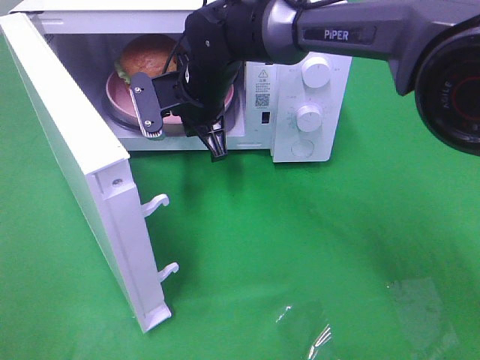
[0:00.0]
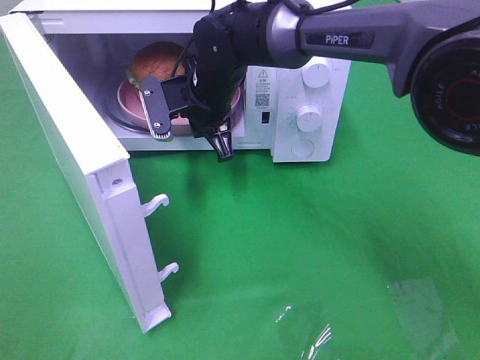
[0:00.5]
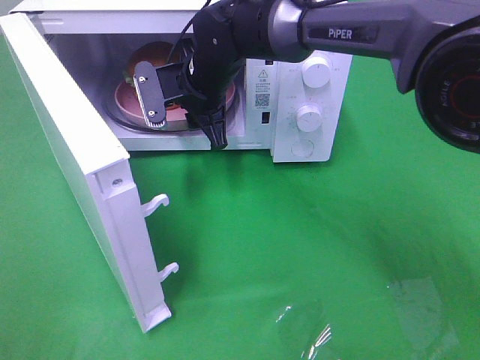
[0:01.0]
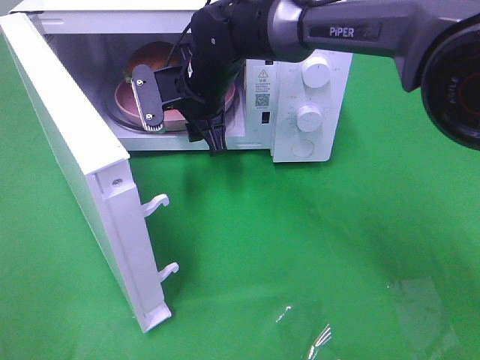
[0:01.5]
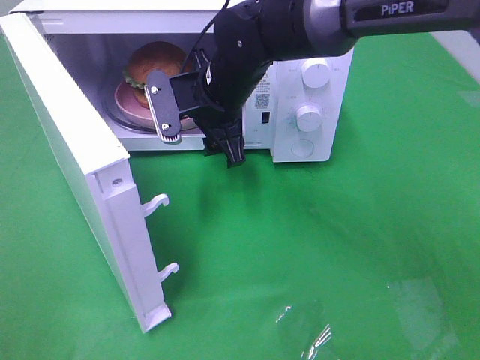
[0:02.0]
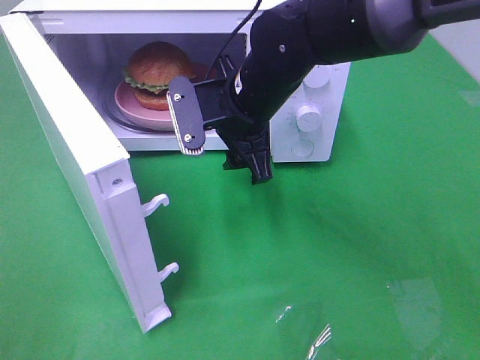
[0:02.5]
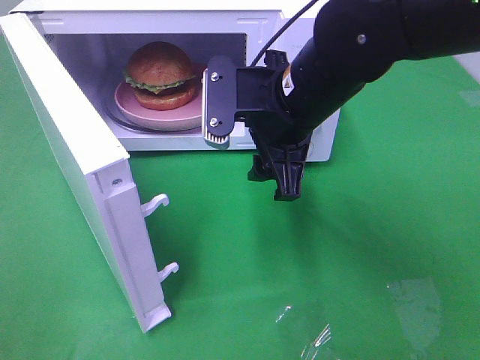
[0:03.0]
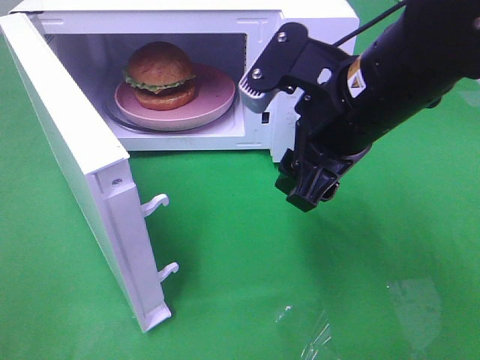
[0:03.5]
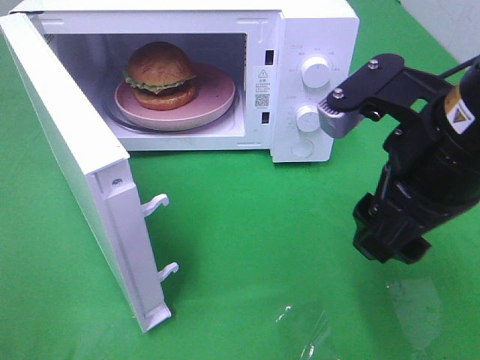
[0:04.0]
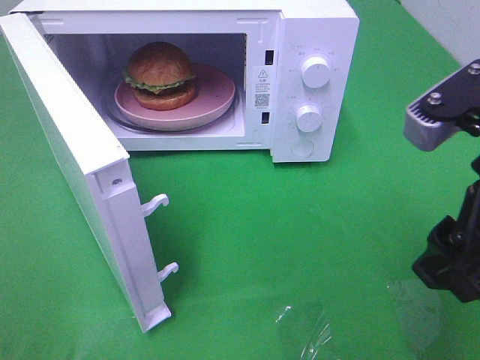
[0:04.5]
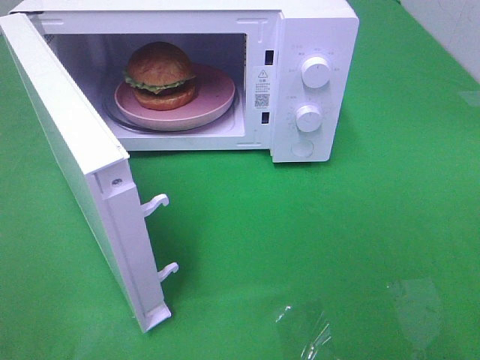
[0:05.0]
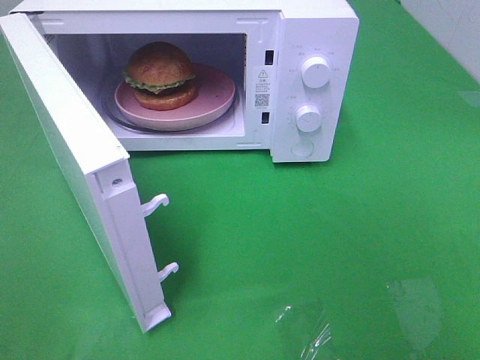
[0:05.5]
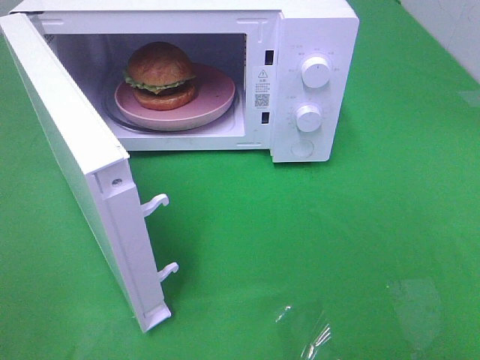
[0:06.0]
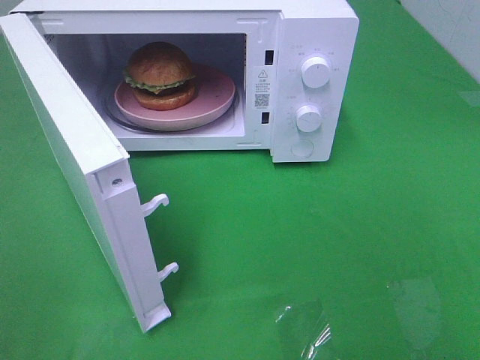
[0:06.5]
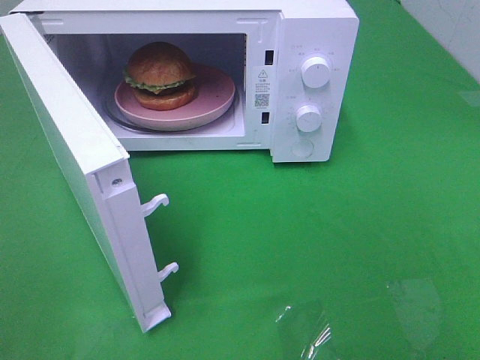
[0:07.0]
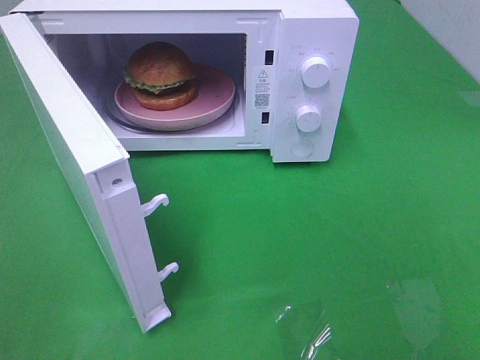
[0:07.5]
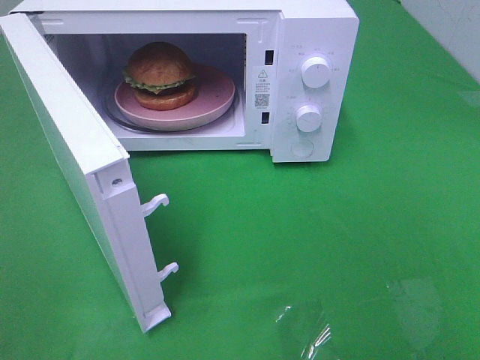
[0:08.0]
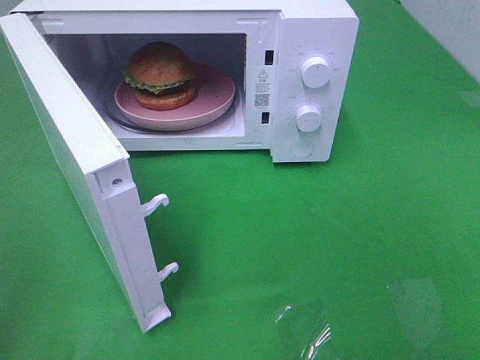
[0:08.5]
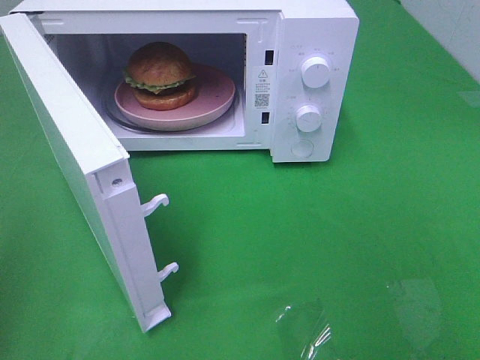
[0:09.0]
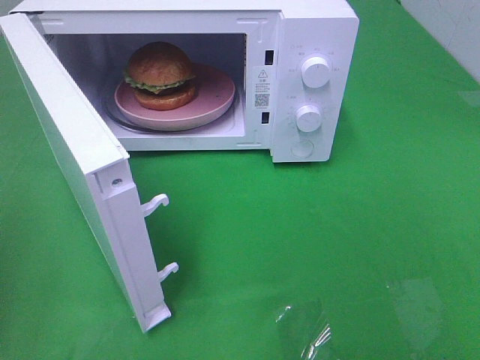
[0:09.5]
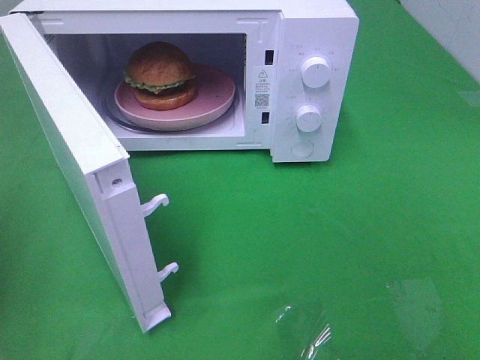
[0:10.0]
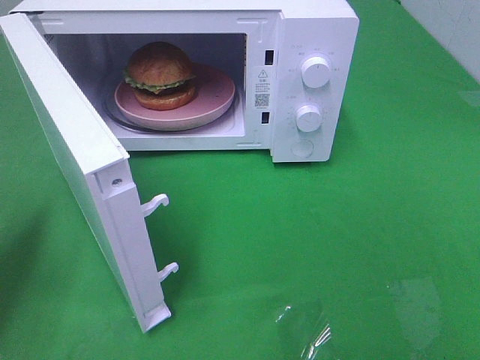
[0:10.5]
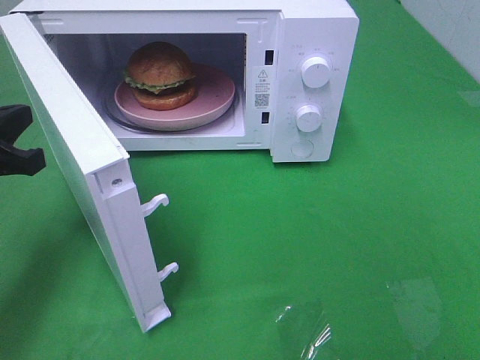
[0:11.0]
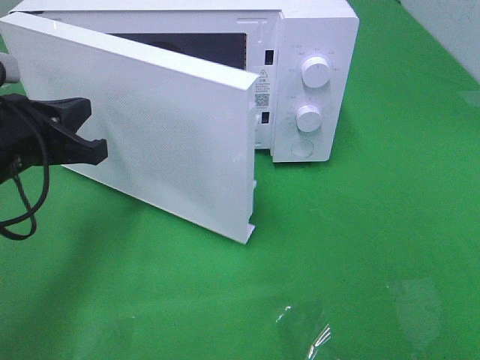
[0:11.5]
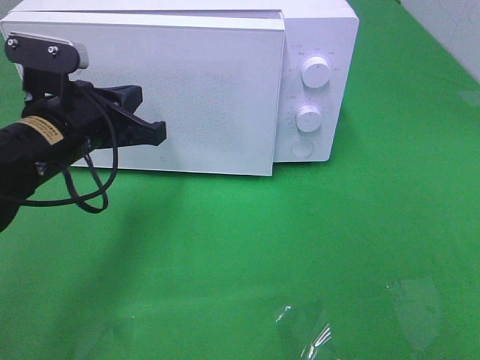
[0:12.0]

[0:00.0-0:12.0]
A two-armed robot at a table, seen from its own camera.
Task of the whole recording: Heat the burger.
0:00.0 to 0:02.0: The right gripper opens its fingers.
0:02.0 to 0:04.0: The right gripper moves backward, to the right and upward, some 25 cm.
0:04.0 to 0:06.0: The right gripper is displaced backward and to the right by roughly 25 cm.
0:06.0 to 0:08.0: Neither gripper changes place.
0:10.0 to 0:12.0: The left gripper goes approximately 20 cm to the right and forward.

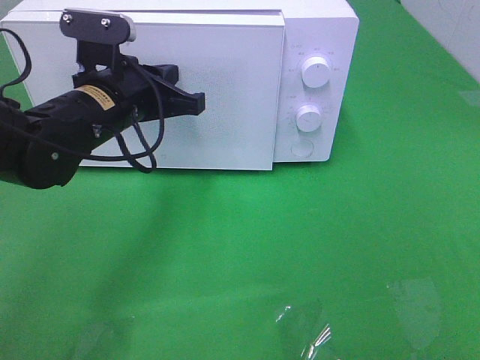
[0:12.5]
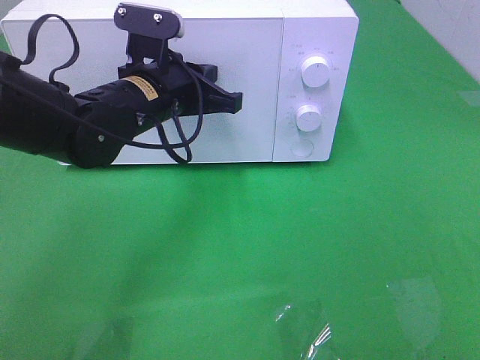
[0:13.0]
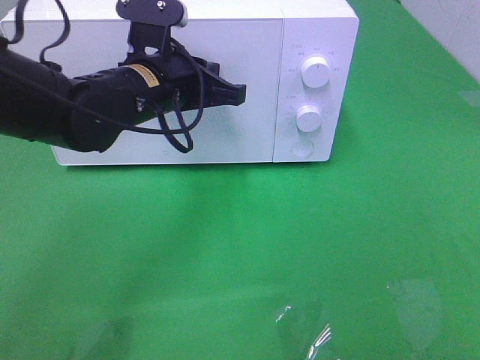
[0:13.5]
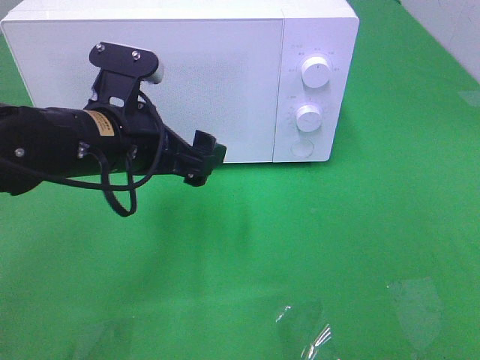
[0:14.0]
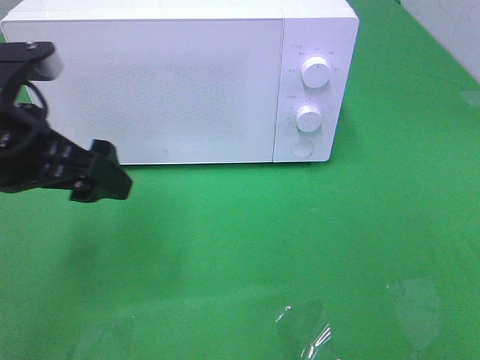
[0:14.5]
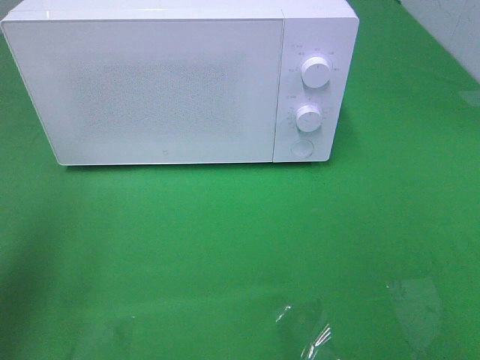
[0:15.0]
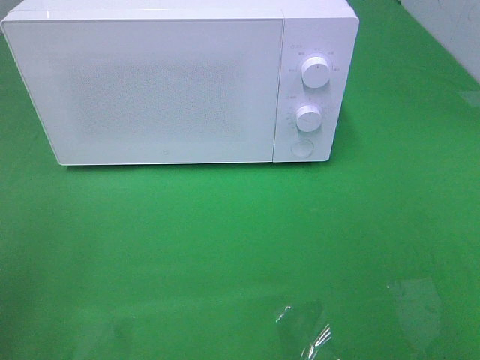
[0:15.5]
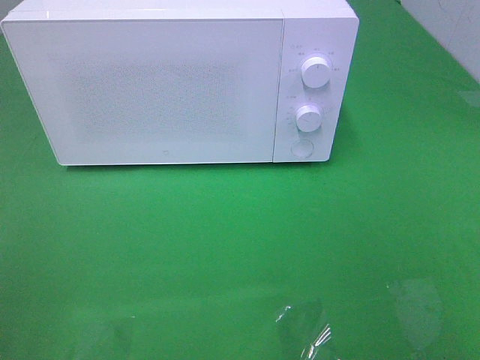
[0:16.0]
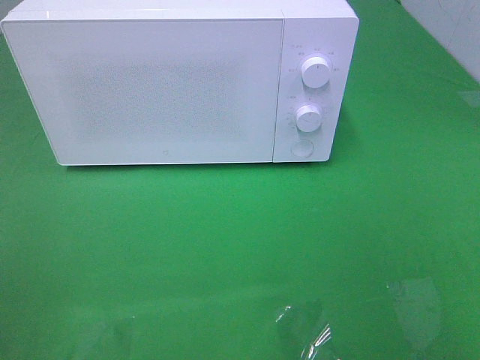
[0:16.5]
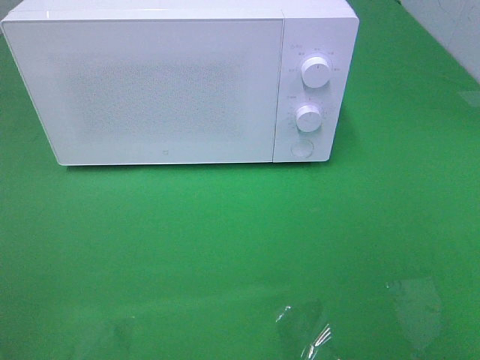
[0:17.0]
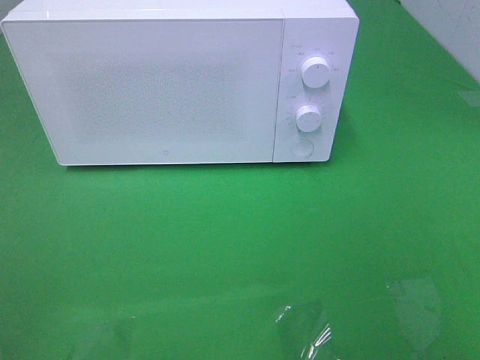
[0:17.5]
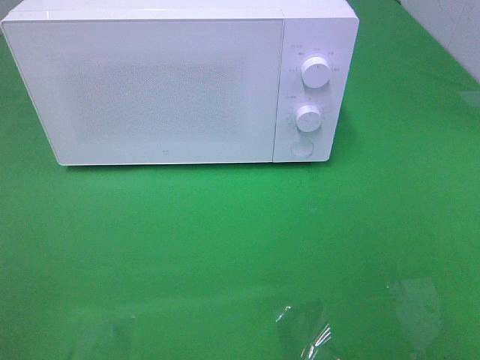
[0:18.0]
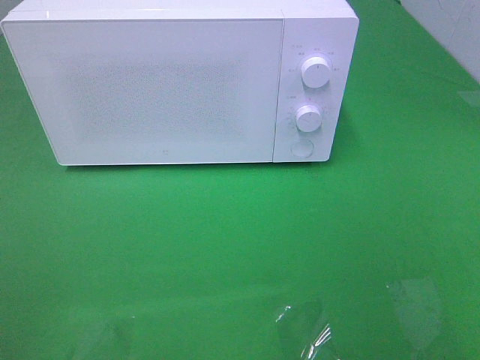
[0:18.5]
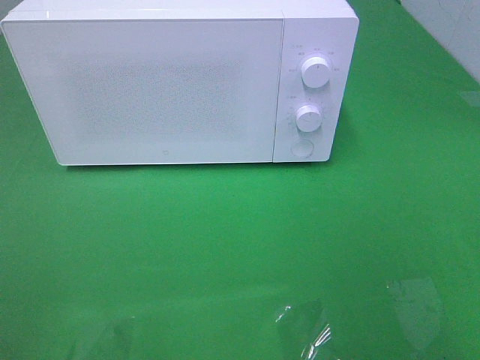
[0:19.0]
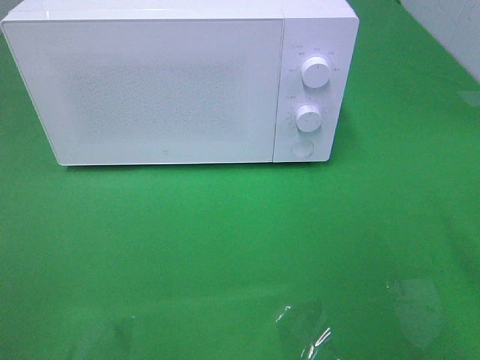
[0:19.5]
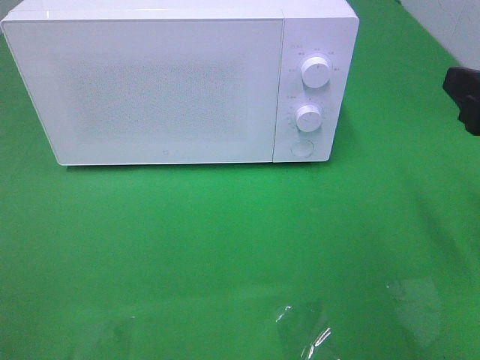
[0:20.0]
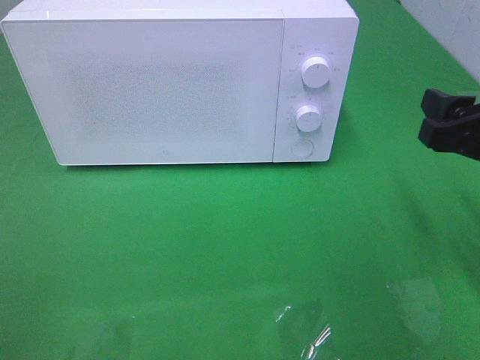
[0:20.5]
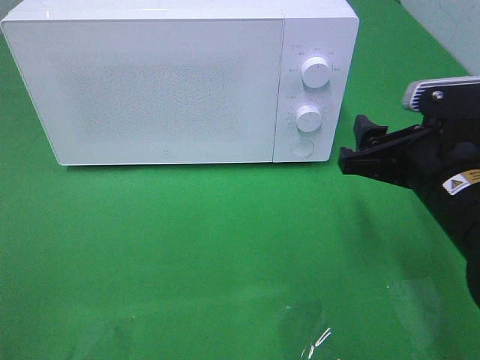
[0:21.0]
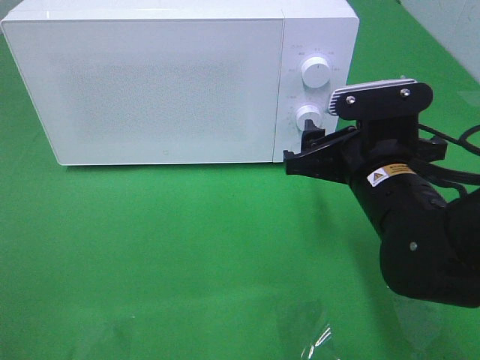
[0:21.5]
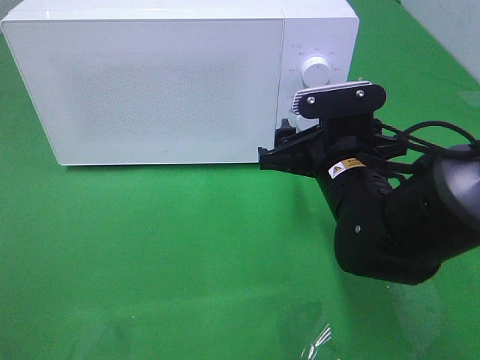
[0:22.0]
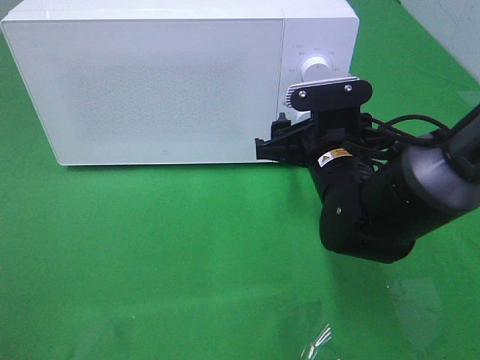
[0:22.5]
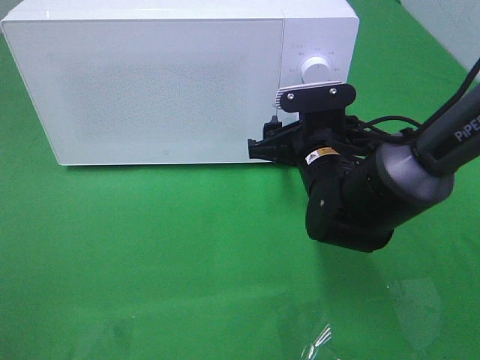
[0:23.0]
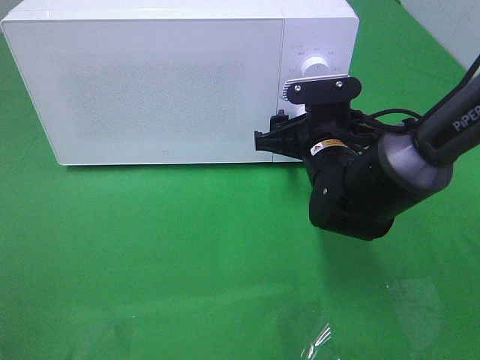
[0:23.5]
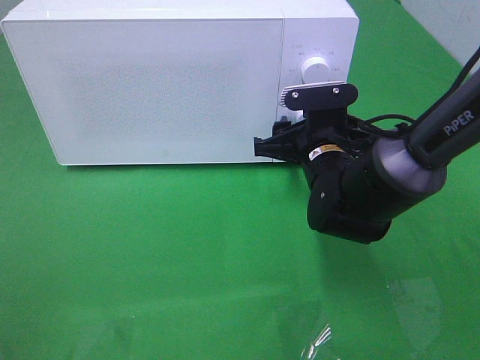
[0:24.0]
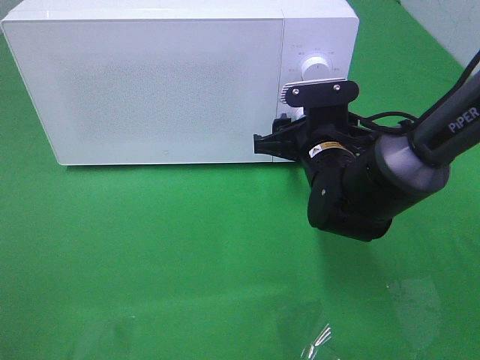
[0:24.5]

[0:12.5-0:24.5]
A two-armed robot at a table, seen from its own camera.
Task of the whole recording: Heat the burger.
0:12.5 to 0:14.5: The left gripper moves backward, to the left and upward, approximately 15 cm, and opens.
0:14.5 to 0:16.5: The left gripper is displaced backward and to the left by some 25 cm.
0:18.5 to 0:20.5: The right gripper travels forward and downward by roughly 20 cm.
0:20.5 to 0:22.5: The right gripper travels to the left, forward and downward by about 20 cm.
0:22.5 to 0:24.5: The grippers make only small movements.

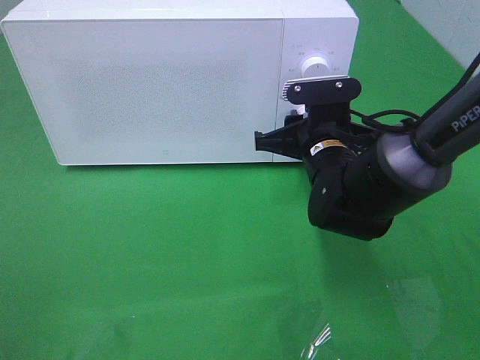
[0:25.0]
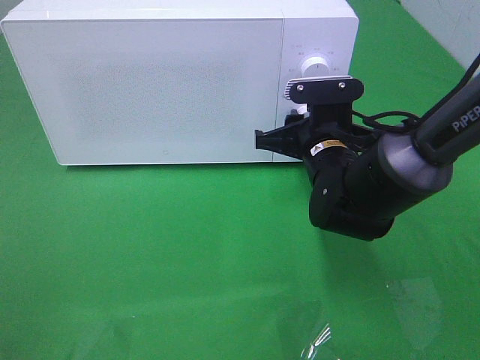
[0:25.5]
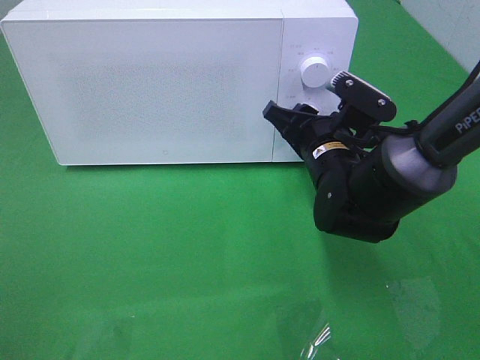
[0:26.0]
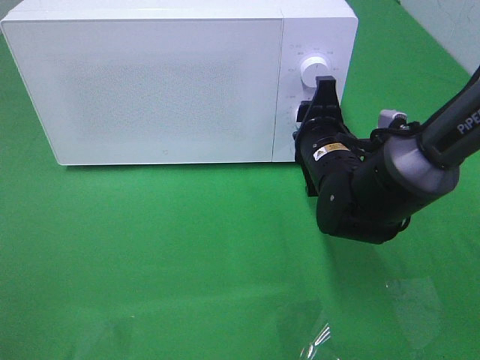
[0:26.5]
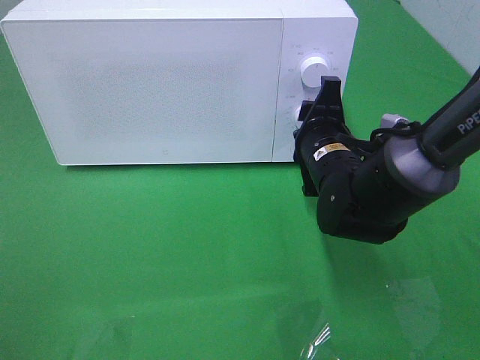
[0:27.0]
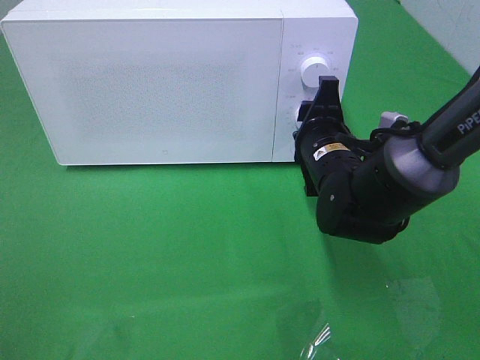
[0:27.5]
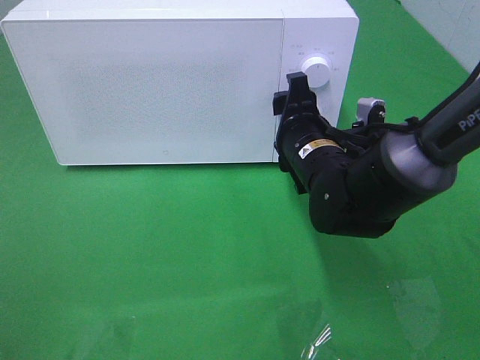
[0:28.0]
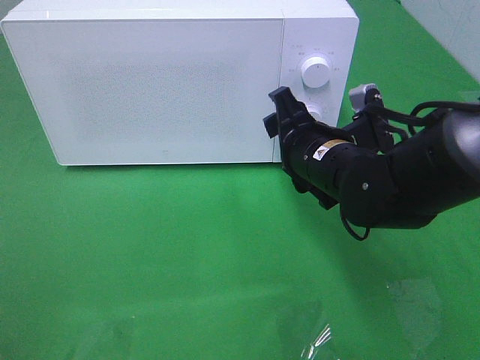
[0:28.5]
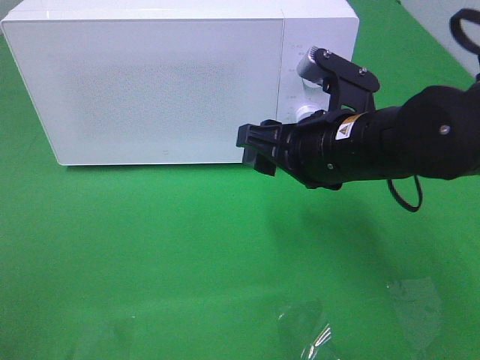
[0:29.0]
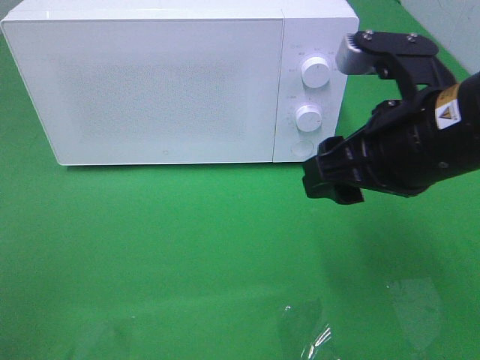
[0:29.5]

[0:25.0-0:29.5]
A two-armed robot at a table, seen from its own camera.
Task of the whole recording: Heat the burger.
Step, 0:25.0 to 0:27.5: Right hand: twist timer button.
0:27.0 to 0:29.5: The right gripper is displaced upward and backward by some 20 cm.
